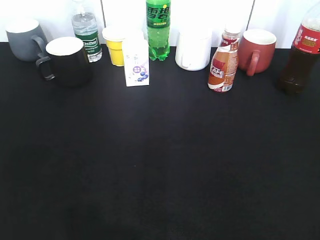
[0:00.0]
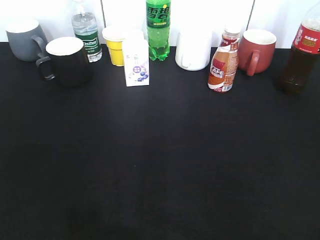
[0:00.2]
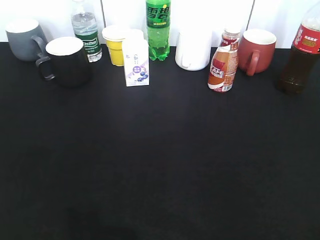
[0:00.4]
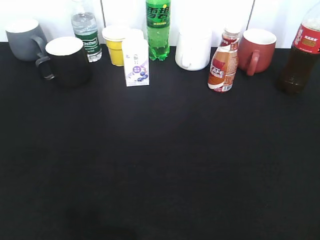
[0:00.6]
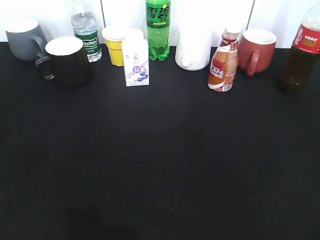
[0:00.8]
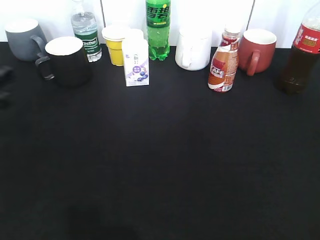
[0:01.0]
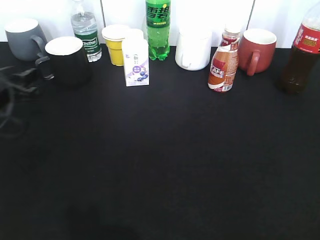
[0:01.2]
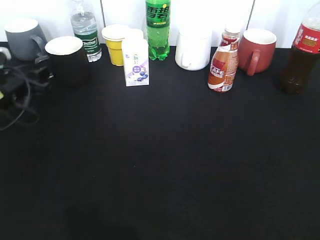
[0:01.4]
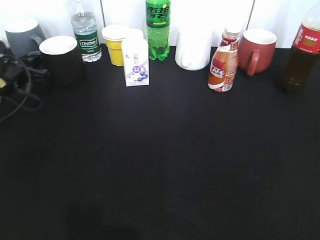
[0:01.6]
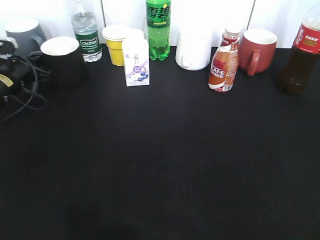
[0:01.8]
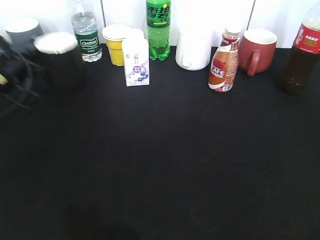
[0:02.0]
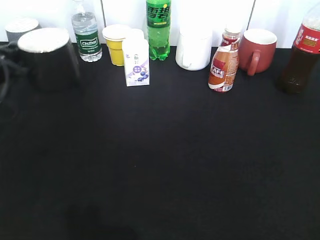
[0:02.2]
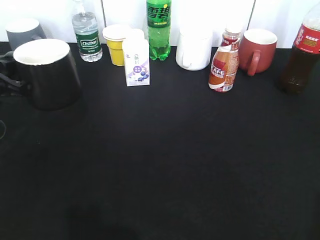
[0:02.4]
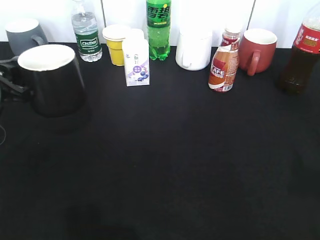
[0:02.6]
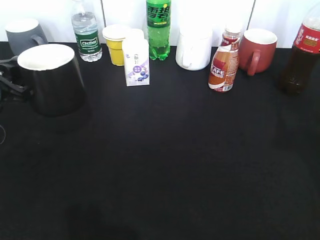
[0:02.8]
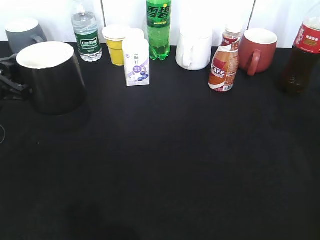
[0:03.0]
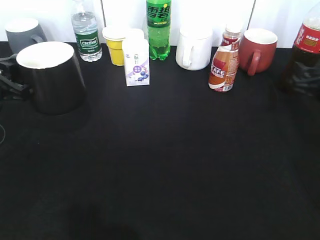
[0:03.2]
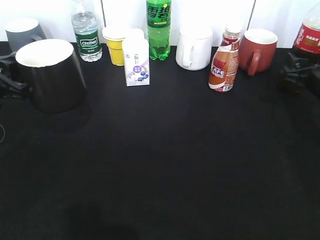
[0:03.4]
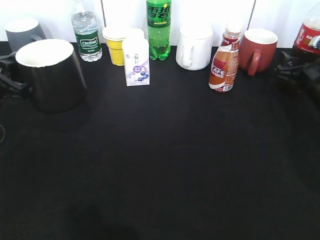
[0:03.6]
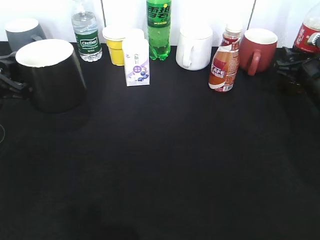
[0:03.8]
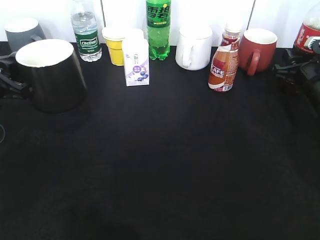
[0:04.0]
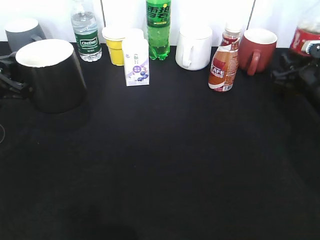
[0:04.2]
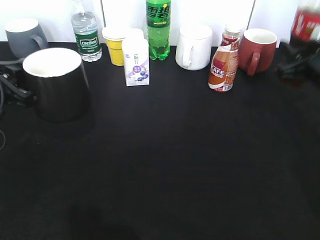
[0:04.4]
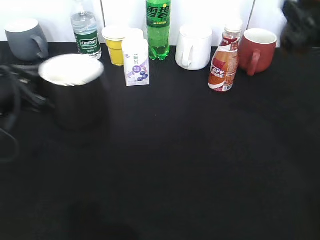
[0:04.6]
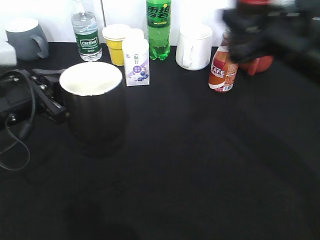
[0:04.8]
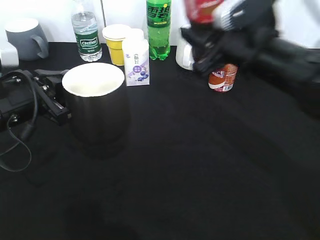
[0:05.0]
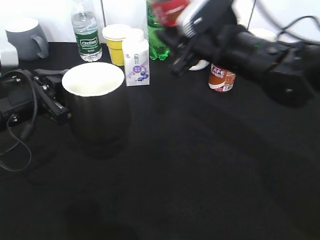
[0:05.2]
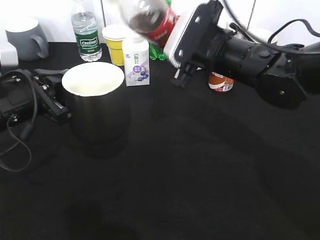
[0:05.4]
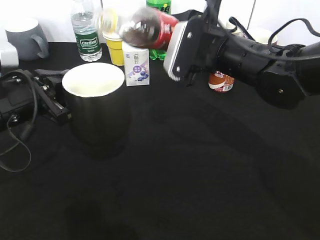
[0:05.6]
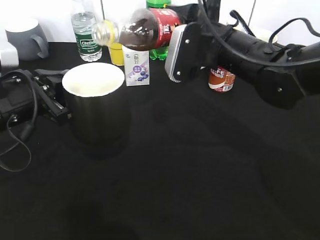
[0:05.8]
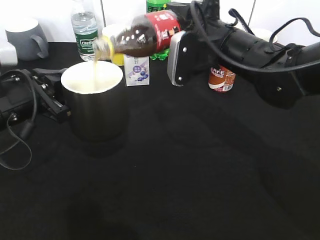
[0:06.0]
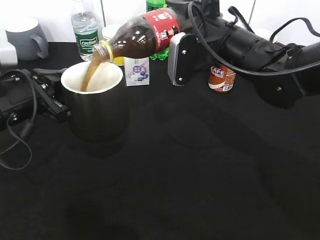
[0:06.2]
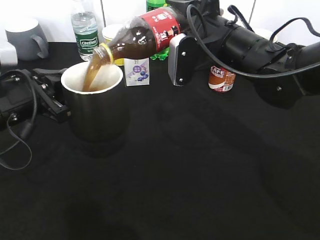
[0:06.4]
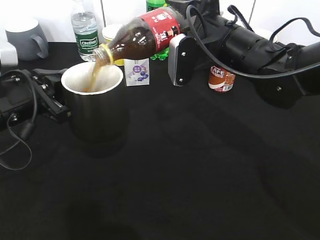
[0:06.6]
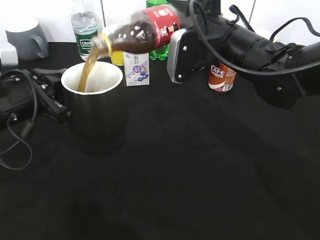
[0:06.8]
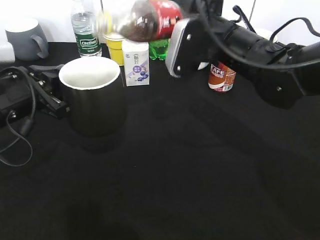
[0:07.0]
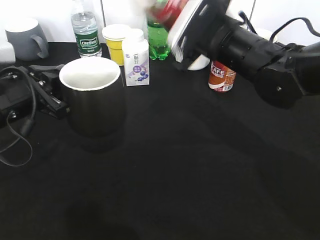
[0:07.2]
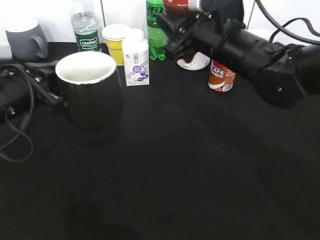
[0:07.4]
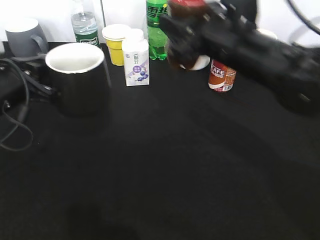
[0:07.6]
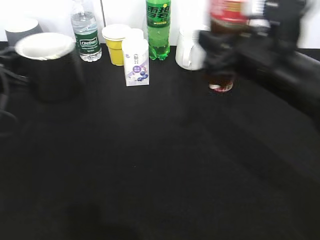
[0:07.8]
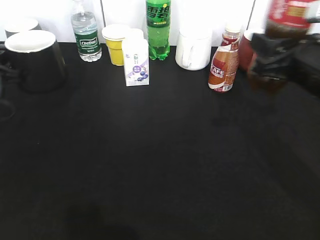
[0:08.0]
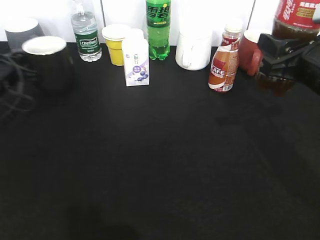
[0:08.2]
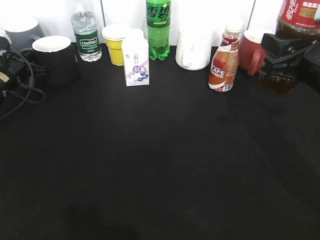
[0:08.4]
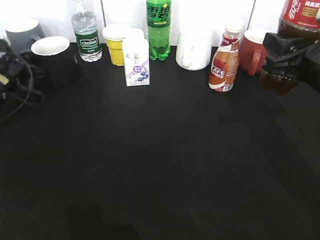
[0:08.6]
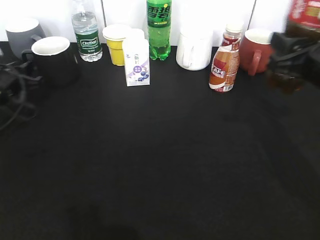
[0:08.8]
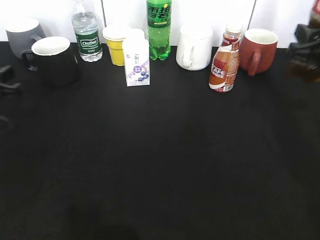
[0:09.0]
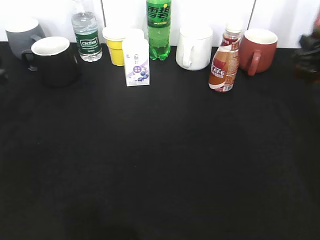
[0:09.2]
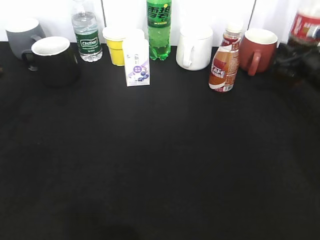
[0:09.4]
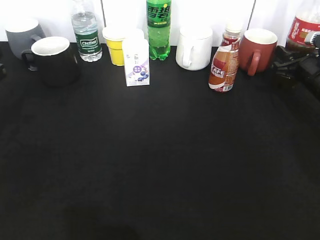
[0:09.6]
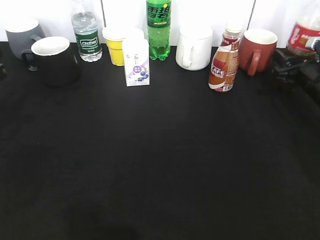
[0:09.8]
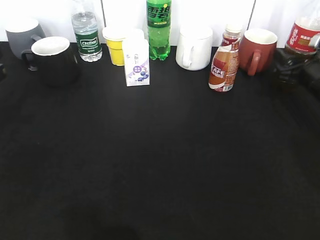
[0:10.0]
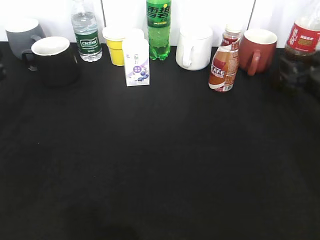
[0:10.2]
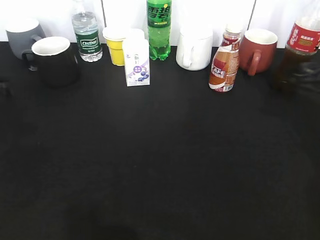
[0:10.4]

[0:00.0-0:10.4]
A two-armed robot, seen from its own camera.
Step, 0:00.0 to 0:01.8: Grasp the black cup with left gripper.
Step, 0:02.0 to 0:02.8: Lift the black cup with left gripper.
Step, 0:03.0 to 0:03.8: Grasp the bottle with cola with right gripper.
Step, 0:04.0 to 0:07.0: Pour the cola from bottle to cup with right gripper.
Step, 0:07.2 to 0:08.8: Place the black cup on the table with left gripper.
0:00.0 to 0:01.4: The left gripper shifts some 40 cm forward and downward.
0:01.4 to 0:03.0: The left gripper goes roughly 10 cm backward and upward, and closes its fingers. The right gripper shifts some 25 cm forward.
0:03.0 to 0:04.4: The right gripper heads forward, covering about 5 cm, and closes up.
0:04.4 to 0:06.0: The left gripper is displaced to the right by some 5 cm; the right gripper shifts approximately 20 cm to the left.
0:07.4 to 0:09.0: The left gripper goes some 10 cm to the left, goes forward and returns, approximately 15 cm each way, and opens up. The right gripper moves to the right, about 20 cm.
0:09.0 to 0:10.4: The right gripper reaches about 10 cm downward, then returns, and opens.

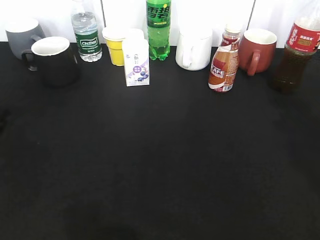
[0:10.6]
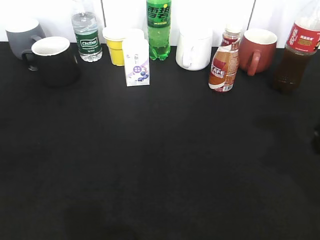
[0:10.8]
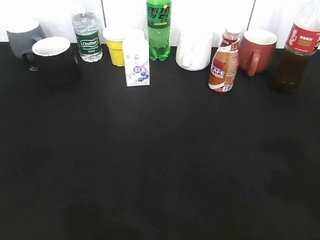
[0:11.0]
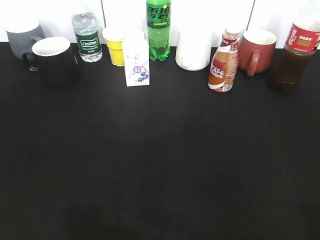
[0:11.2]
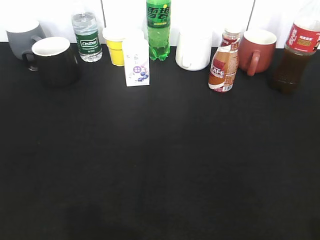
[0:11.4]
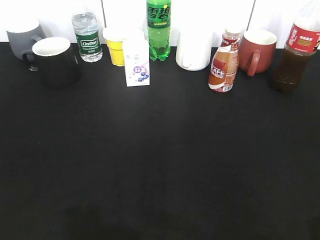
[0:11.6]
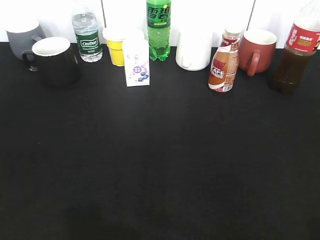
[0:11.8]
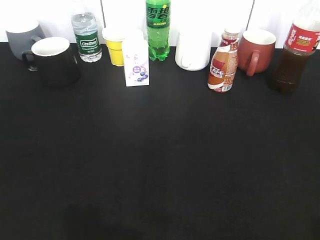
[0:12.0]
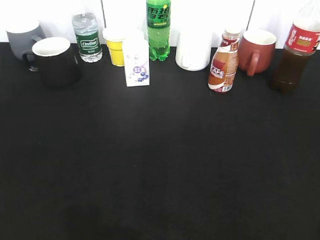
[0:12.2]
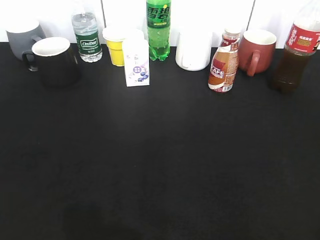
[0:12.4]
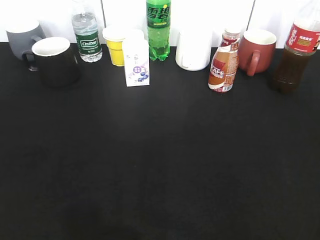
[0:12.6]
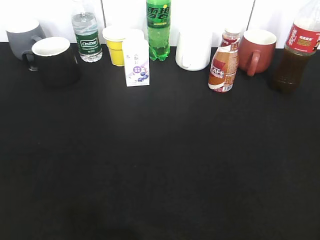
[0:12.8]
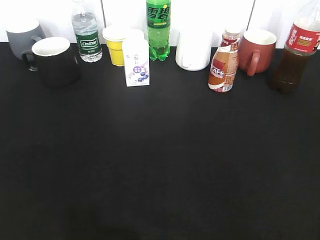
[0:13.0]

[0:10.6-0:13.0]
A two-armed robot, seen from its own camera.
0:10.6 to 0:11.8: The grippers both shift backward by roughly 25 cm.

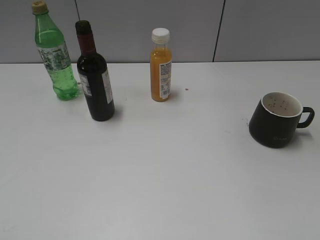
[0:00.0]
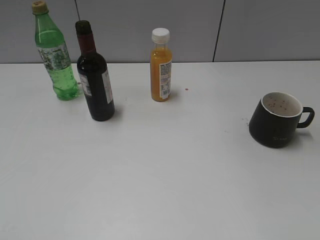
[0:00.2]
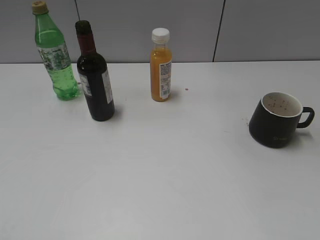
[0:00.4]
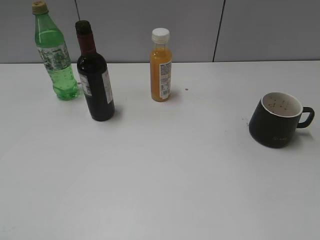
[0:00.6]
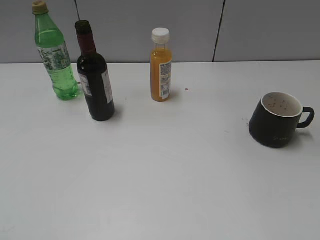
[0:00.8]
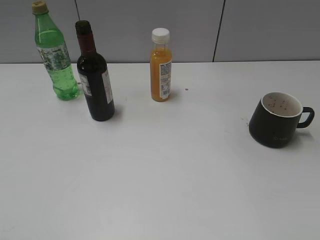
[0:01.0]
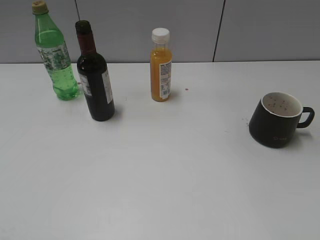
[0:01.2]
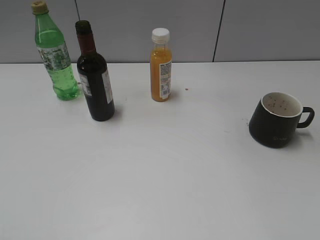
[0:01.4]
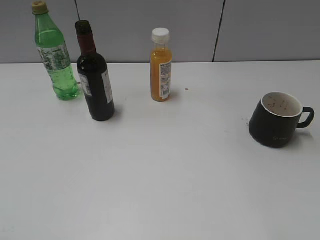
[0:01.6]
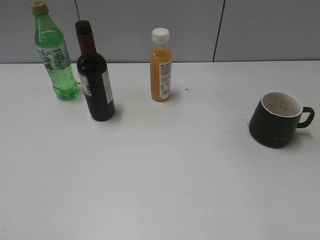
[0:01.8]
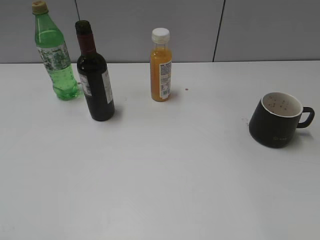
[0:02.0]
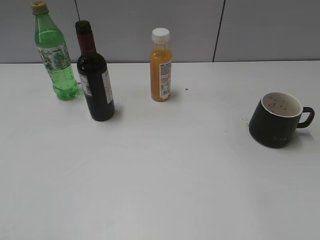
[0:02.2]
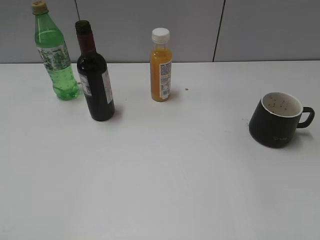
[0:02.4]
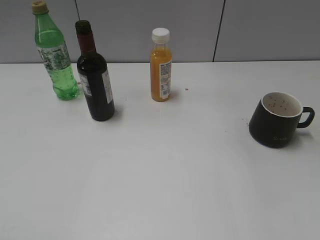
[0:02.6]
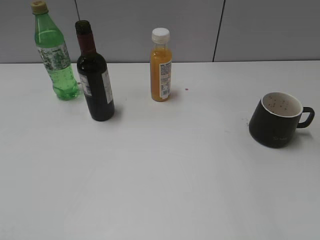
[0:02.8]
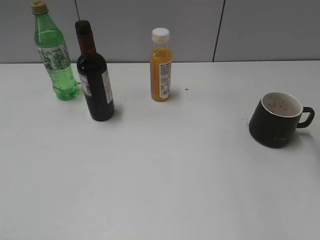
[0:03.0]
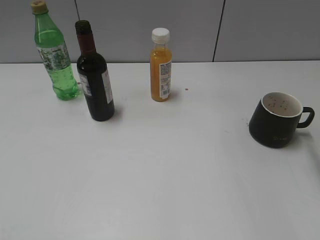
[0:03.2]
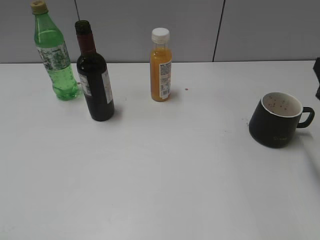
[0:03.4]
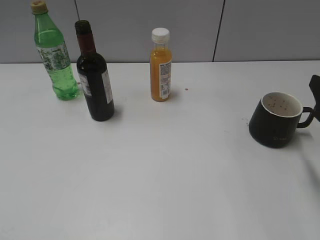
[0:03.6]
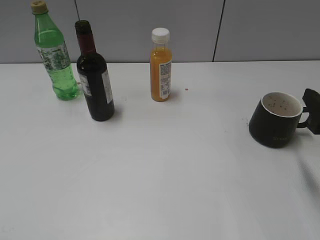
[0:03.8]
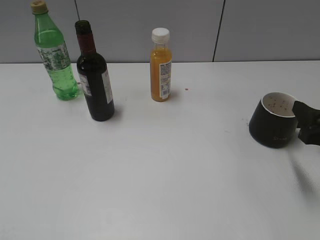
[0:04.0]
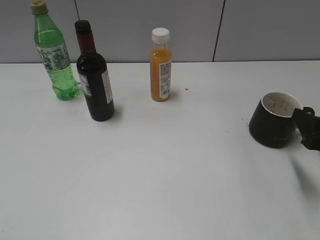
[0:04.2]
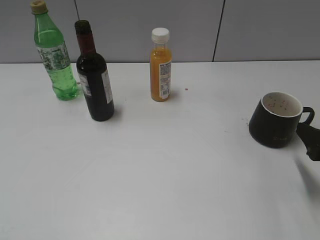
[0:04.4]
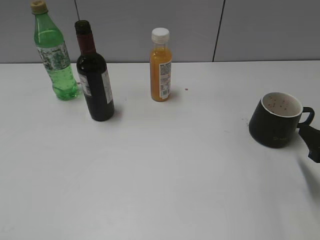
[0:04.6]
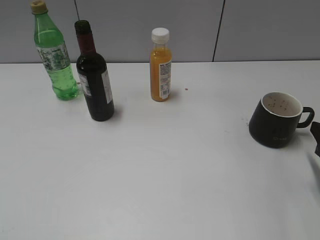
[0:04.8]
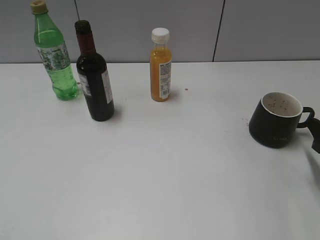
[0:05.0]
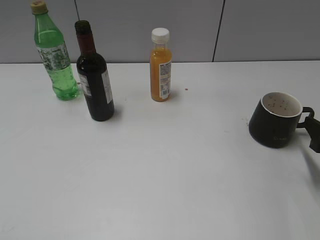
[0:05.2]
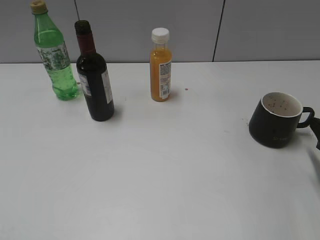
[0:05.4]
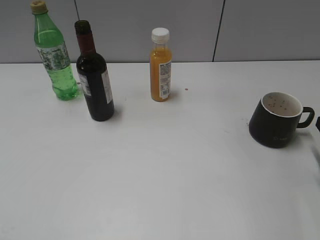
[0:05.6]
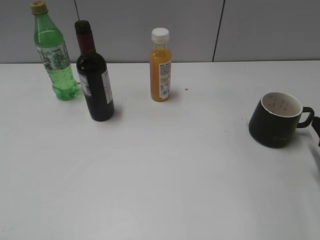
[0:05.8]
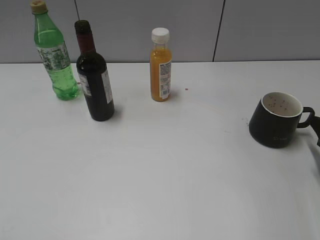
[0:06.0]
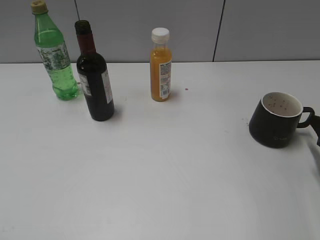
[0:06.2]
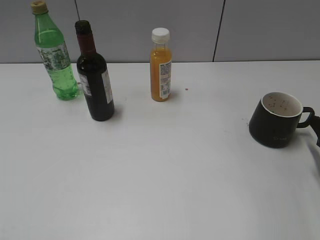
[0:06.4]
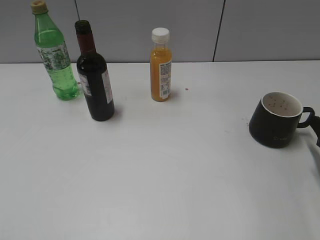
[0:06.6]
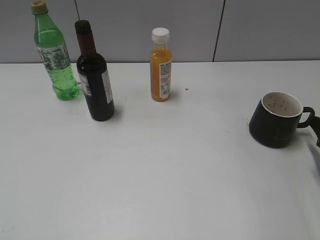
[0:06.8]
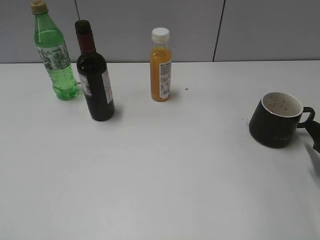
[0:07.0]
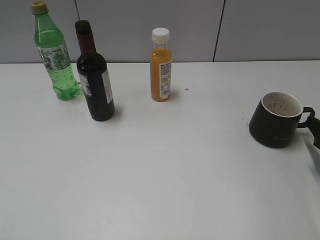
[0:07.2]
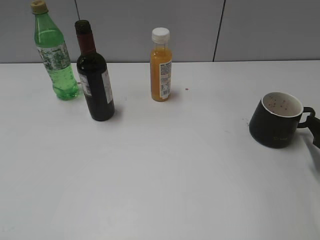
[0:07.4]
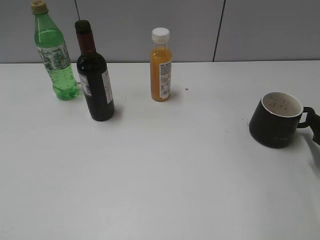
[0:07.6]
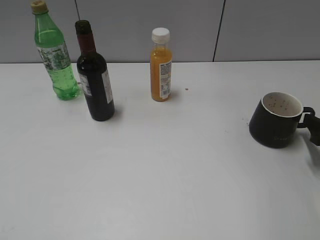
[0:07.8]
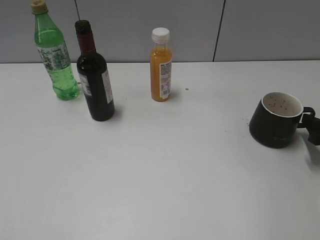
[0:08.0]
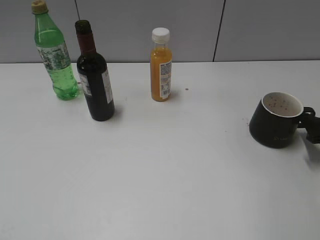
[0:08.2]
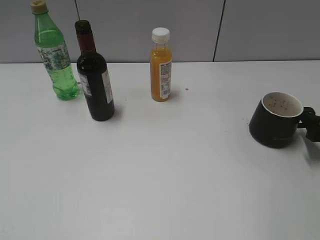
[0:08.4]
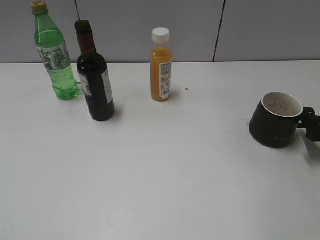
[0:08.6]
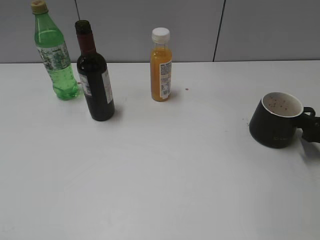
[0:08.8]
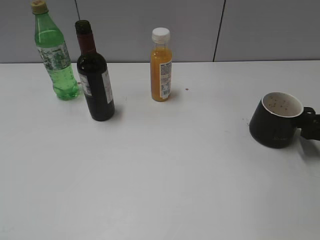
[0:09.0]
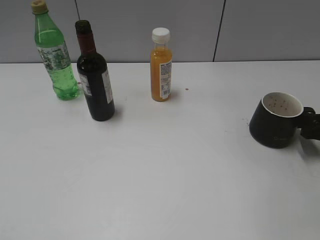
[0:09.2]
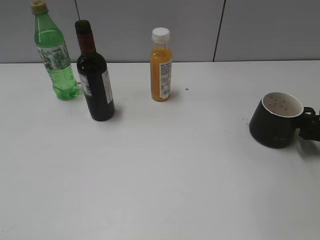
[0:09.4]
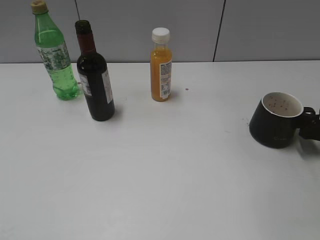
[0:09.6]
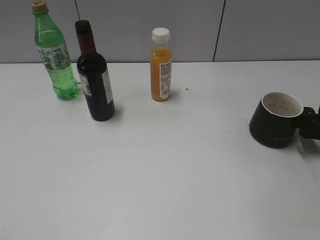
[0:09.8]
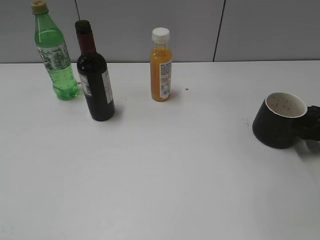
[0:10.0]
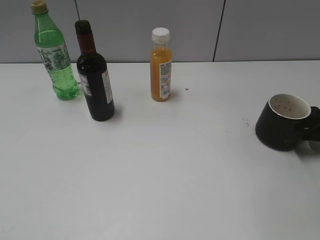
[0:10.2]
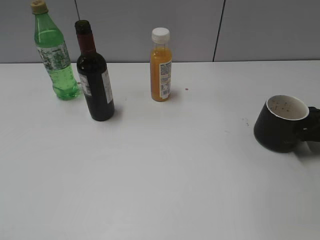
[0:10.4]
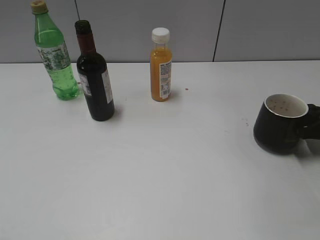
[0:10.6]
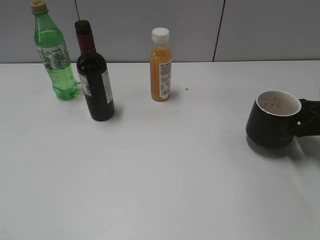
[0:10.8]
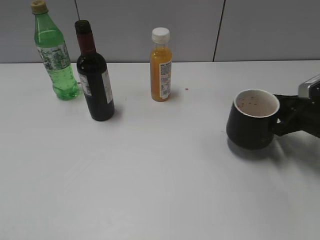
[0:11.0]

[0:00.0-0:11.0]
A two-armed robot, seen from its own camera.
Step, 0:01.0 to 0:10.2: Grasp the black cup with right gripper.
0:03.2 to 0:04.8: The right gripper is displaced downward by approximately 15 cm.
0:09.4 to 0:11.0: The right gripper heads to the left, covering approximately 5 cm, and closes up.
